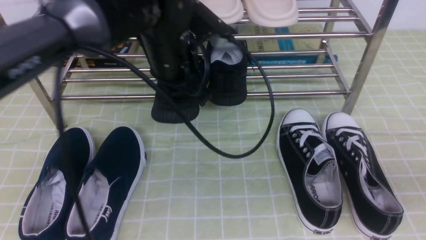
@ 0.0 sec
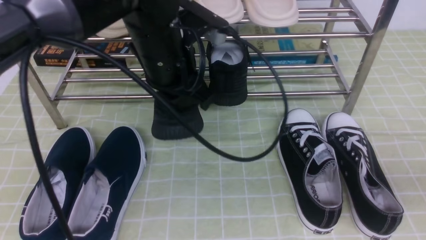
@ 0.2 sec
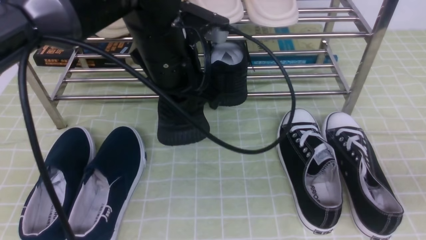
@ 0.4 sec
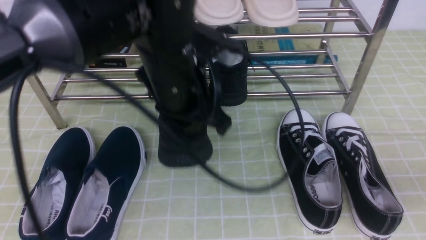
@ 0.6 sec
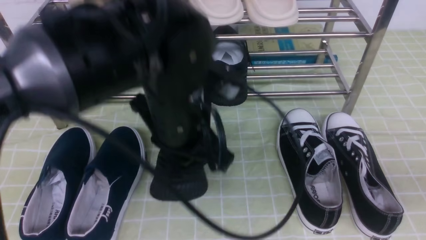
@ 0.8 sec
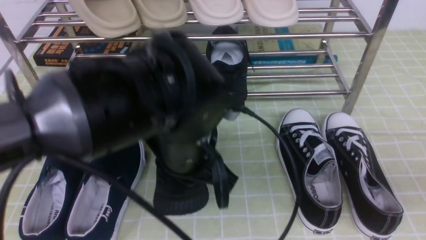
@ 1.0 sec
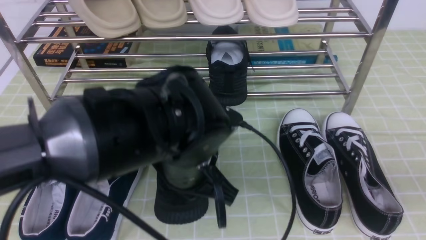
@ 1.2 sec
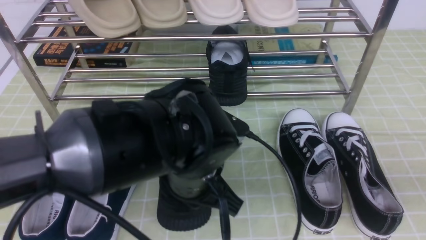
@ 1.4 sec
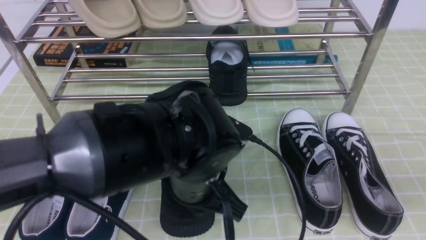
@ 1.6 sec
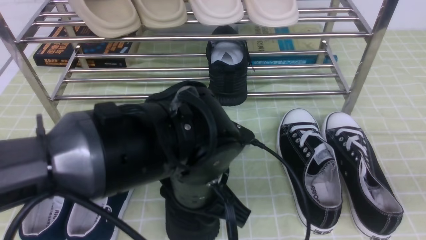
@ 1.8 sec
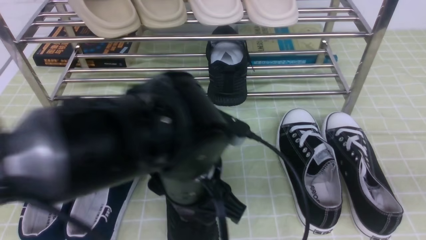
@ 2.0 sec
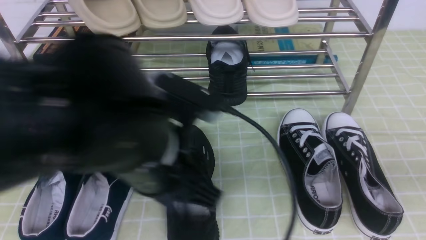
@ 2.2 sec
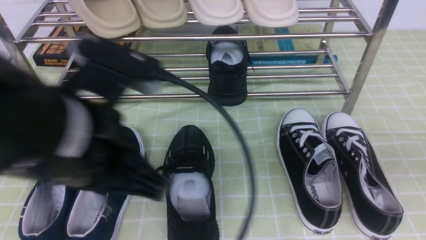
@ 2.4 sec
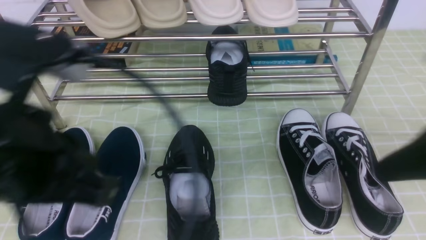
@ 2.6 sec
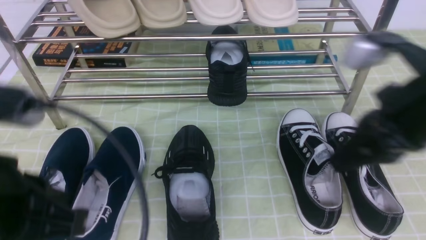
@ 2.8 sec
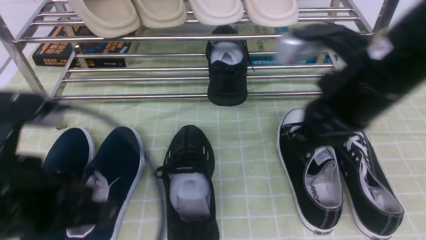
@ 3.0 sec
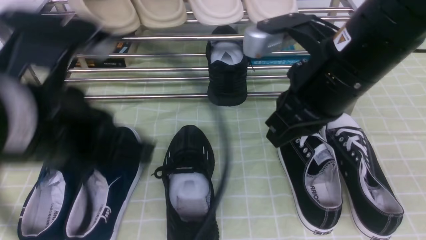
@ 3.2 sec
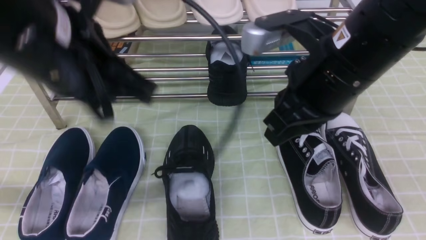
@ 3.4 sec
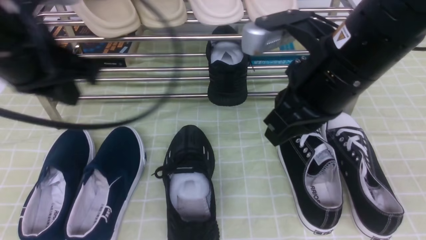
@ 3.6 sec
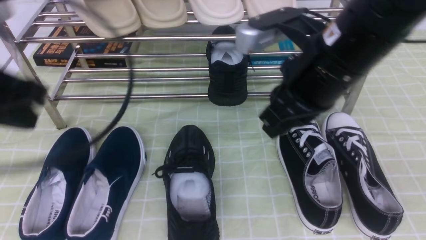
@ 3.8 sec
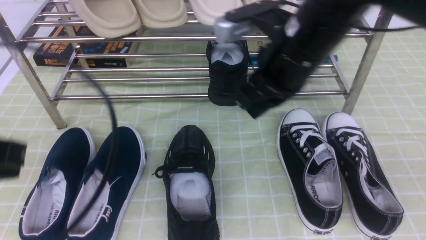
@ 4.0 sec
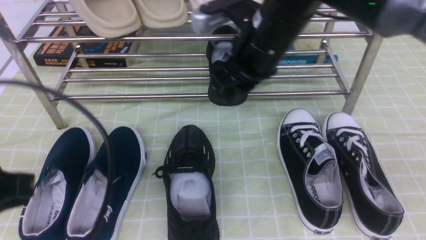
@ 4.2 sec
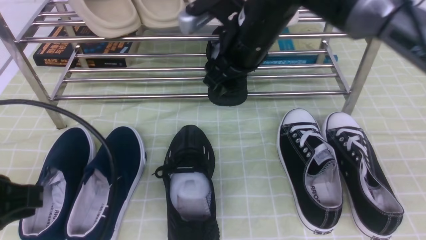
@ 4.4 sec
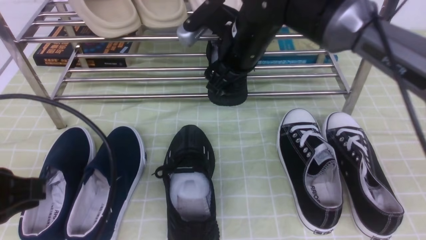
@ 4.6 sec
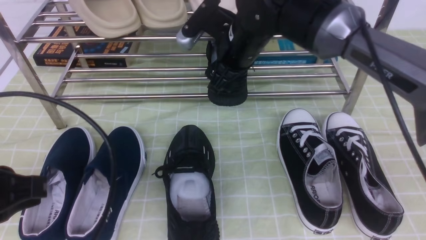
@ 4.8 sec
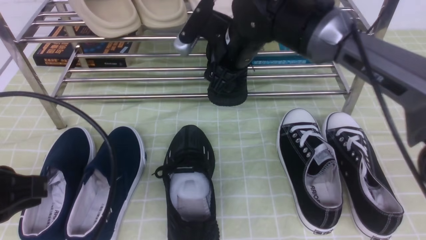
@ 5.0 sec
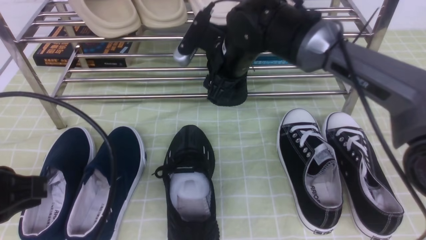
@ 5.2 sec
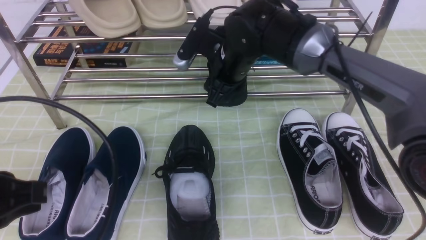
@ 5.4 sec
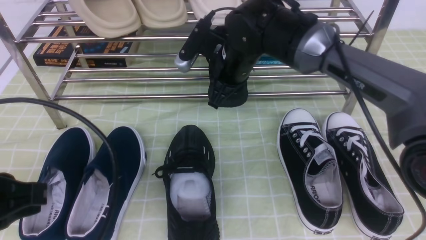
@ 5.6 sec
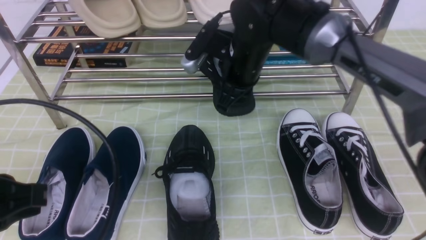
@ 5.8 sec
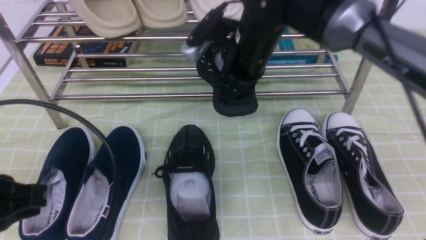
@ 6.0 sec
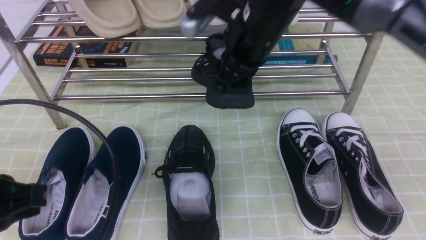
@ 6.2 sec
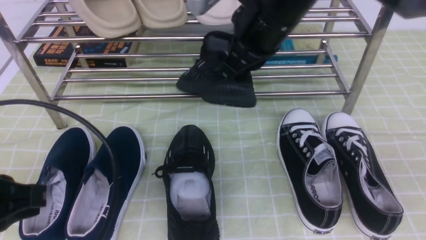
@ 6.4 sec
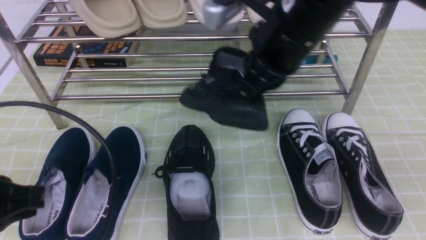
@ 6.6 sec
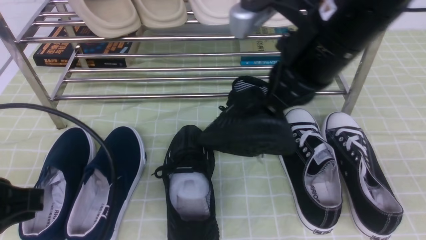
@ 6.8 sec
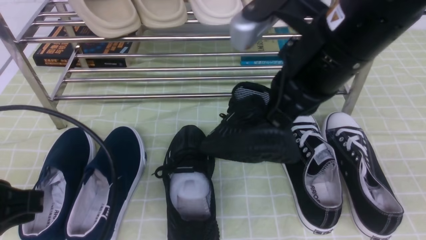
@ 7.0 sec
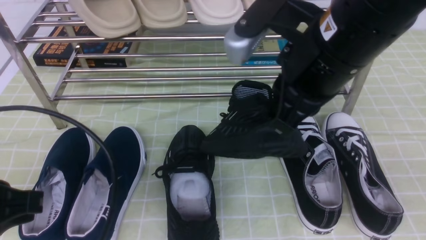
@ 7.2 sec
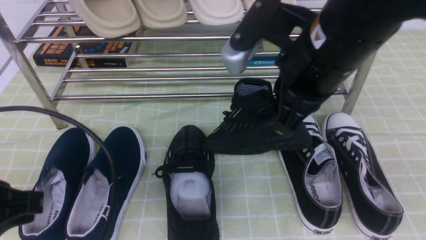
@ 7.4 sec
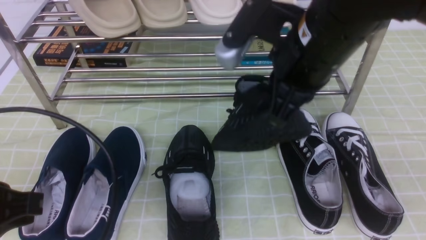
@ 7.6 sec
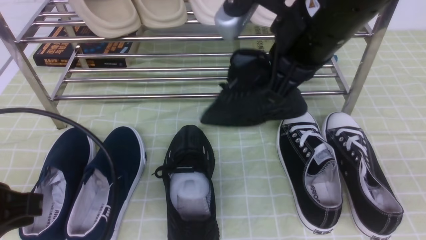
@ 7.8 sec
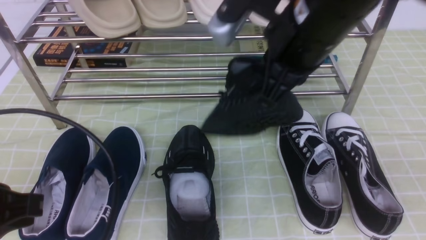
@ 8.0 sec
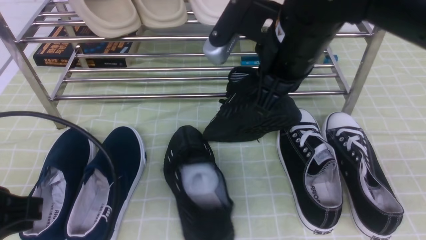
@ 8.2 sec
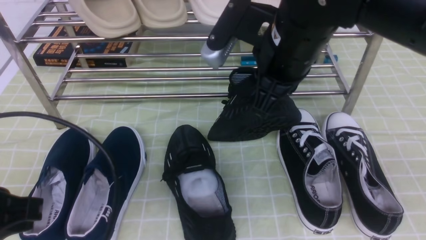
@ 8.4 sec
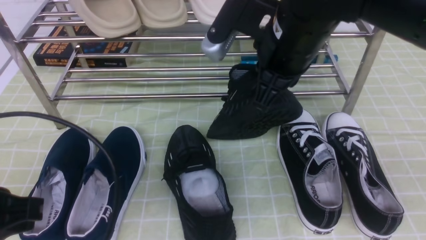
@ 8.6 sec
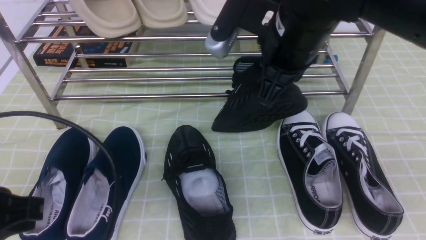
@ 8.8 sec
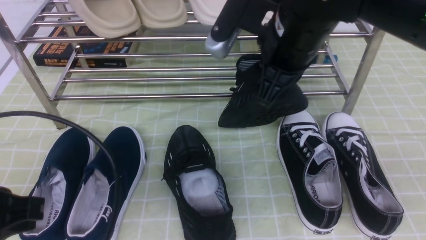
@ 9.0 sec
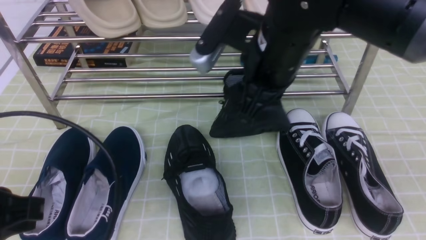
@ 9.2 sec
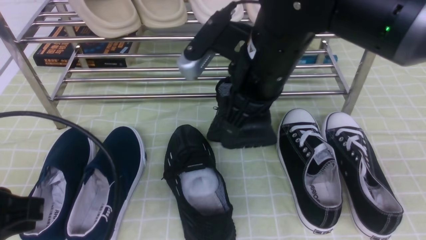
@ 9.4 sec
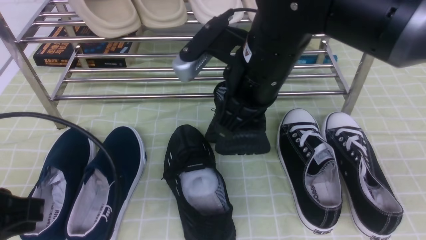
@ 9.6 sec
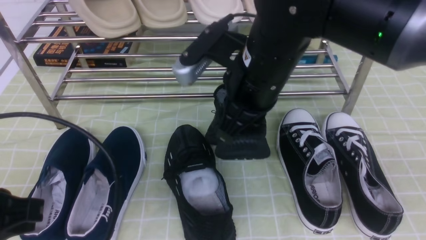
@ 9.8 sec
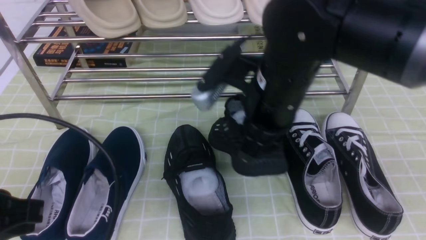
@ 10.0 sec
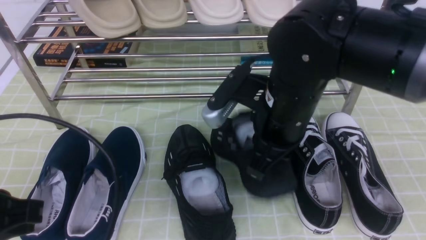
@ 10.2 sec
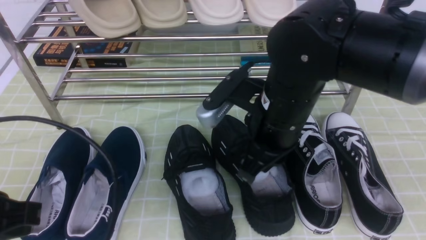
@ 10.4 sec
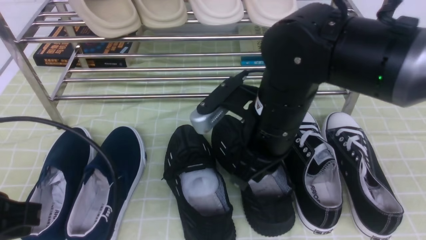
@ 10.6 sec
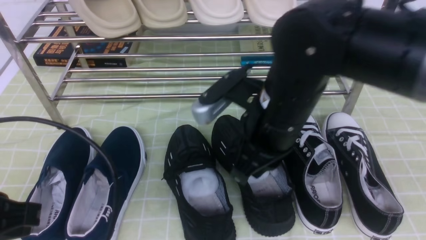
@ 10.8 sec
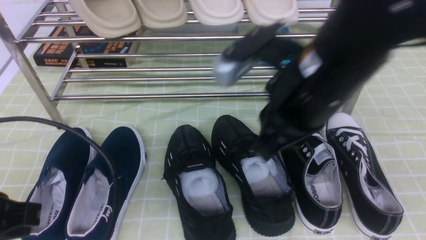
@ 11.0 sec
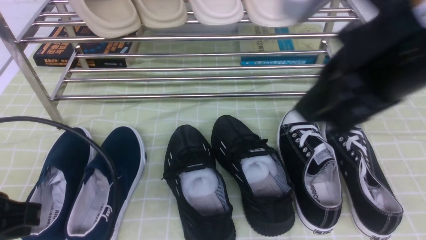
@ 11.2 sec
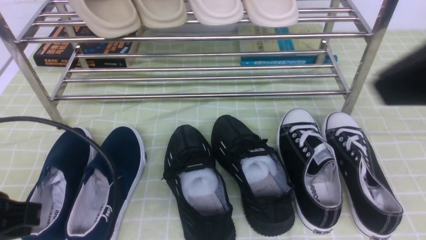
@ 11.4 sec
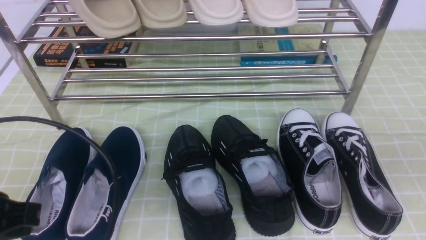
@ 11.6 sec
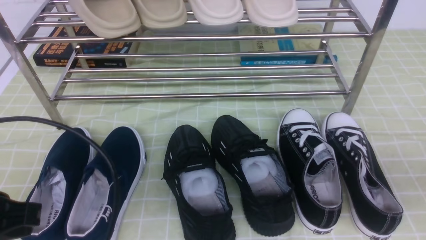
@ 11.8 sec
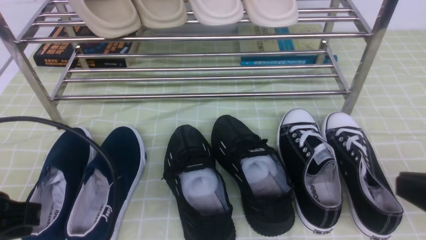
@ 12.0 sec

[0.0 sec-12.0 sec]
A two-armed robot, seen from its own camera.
Step, 0.0 sec to 2.2 sec: Use your left arm to remove the clamped shoe from the shoe rack and put it down.
Step, 2.4 sec to 5.6 sec: use the right arm to clamp a shoe in the middle of the shoe rack.
Step, 5.8 sec to 10.6 sec: use the right arm to take out the clamped shoe from the shoe rack and put it down.
0.0 sec to 1.6 sec: The left gripper goes approximately 15 cm backward and downward.
1.6 sec to 3.0 sec: The left gripper heads to the left, upward and backward, covering about 20 cm; the right gripper goes about 20 cm to the left and forward.
3.0 sec to 4.4 sec: The left gripper heads to the left, covering about 10 cm. Meanwhile the right gripper moves forward and to the left, about 15 cm, and opens its fingers.
4.4 sec to 6.0 sec: The right gripper closes.
6.0 sec to 7.6 sec: The right gripper moves backward and upward, roughly 15 cm.
7.6 sec to 9.0 sec: The grippers move only a little.
9.0 sec to 10.4 sec: The right gripper heads downward, covering about 5 cm.
10.4 sec to 12.0 sec: The right gripper heads to the right and backward, covering some 25 cm.

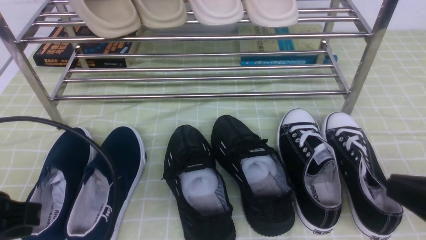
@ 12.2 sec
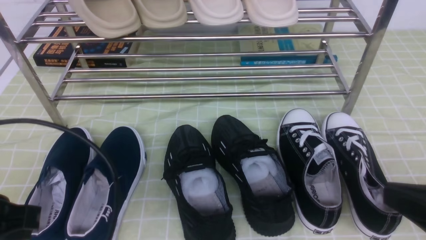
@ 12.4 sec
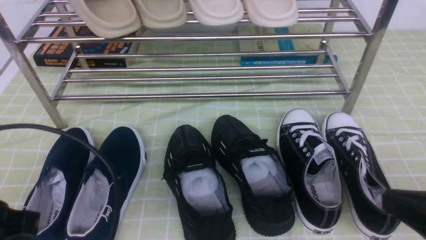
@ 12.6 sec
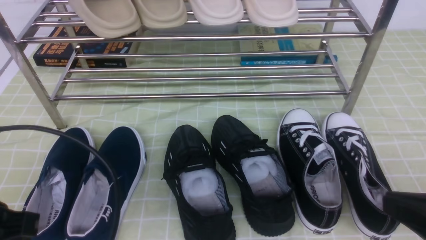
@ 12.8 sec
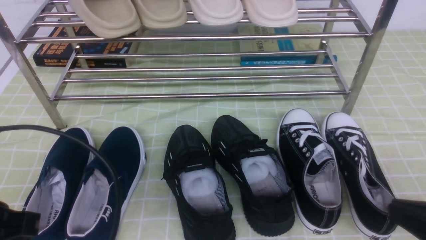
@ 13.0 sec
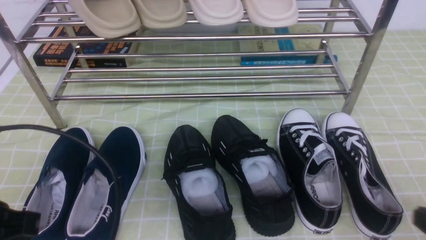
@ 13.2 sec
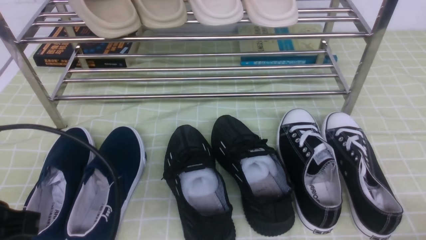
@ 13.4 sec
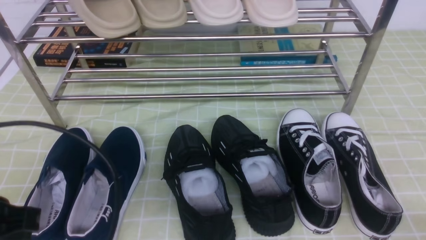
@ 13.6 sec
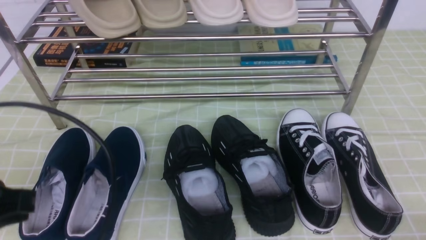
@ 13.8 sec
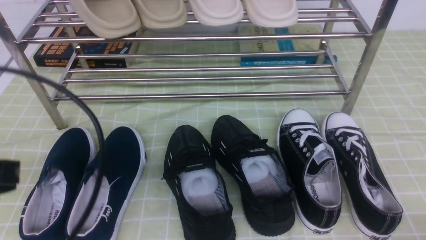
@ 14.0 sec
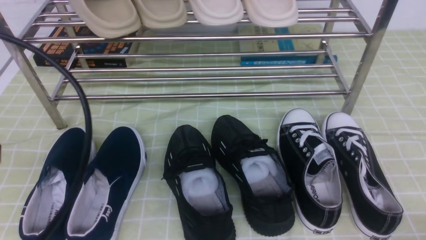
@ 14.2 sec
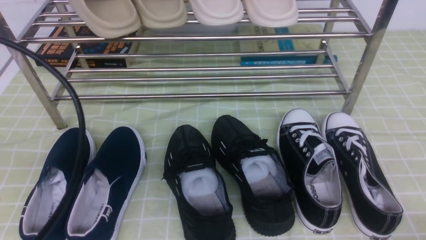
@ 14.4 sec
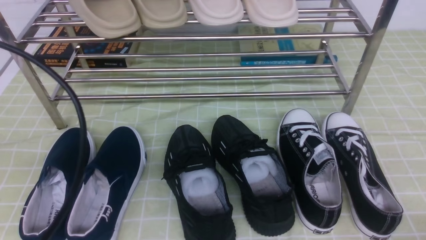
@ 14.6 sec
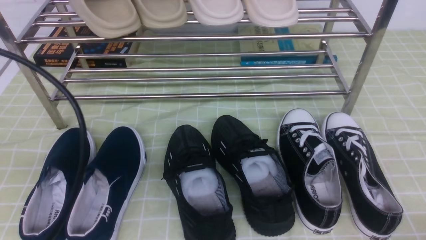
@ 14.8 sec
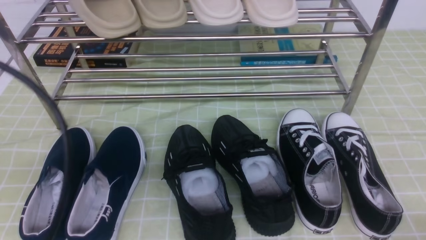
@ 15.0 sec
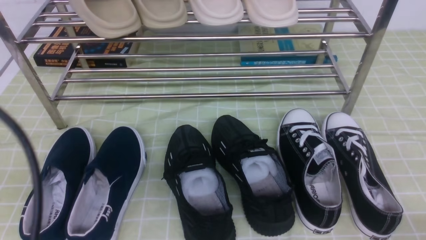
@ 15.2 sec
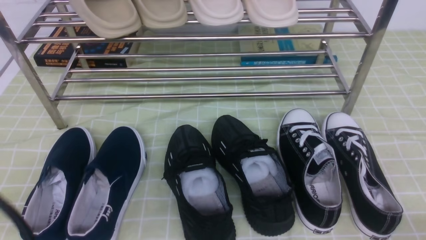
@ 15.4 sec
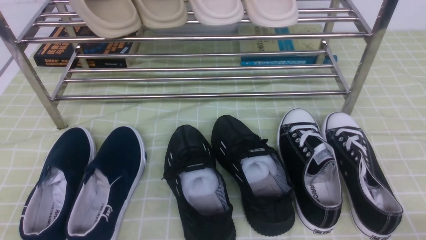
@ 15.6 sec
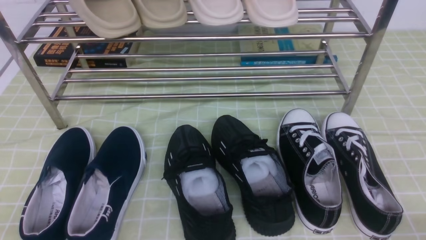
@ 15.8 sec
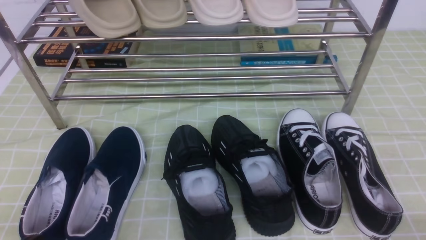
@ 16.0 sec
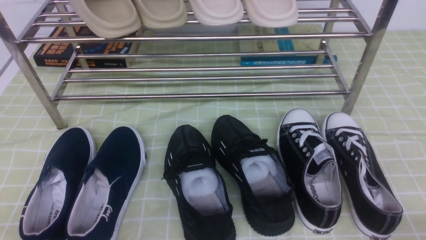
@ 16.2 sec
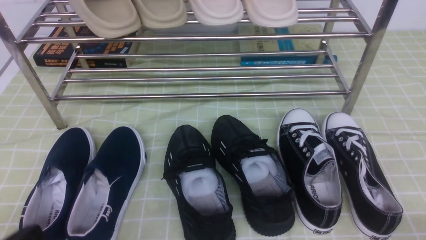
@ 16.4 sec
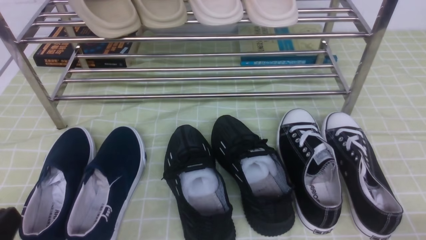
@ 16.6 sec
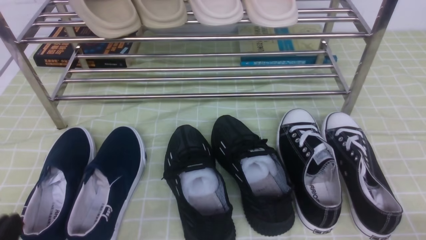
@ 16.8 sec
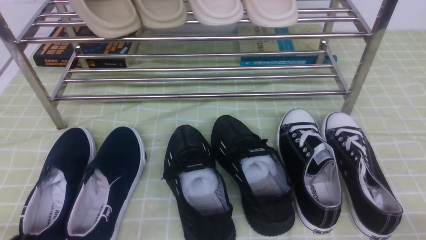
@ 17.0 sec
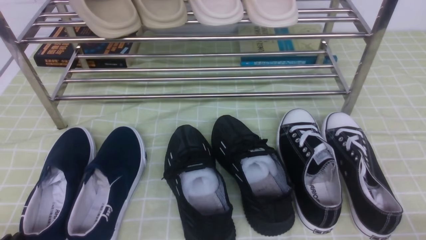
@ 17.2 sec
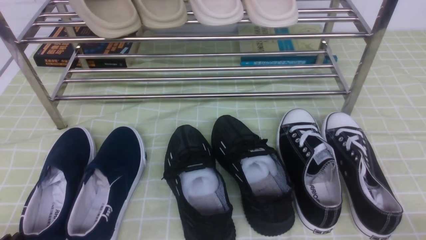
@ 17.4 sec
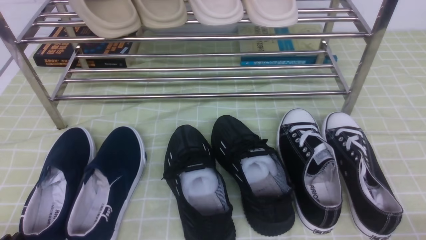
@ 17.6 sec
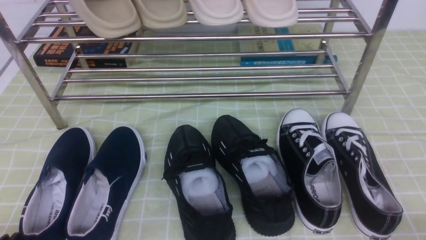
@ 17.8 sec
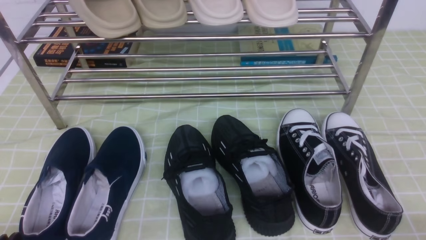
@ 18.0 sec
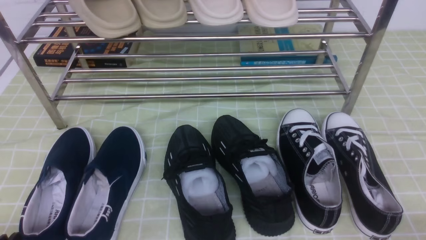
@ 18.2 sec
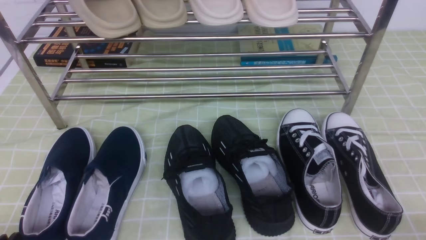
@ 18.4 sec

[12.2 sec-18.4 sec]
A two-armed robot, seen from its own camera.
12.2 sec to 13.8 sec: The right gripper is displaced downward and to the right by approximately 15 cm.
13.8 sec to 15.4 sec: The left gripper heads backward, covering approximately 10 cm.
15.4 sec to 16.8 sec: The left gripper heads downward, covering approximately 15 cm.
